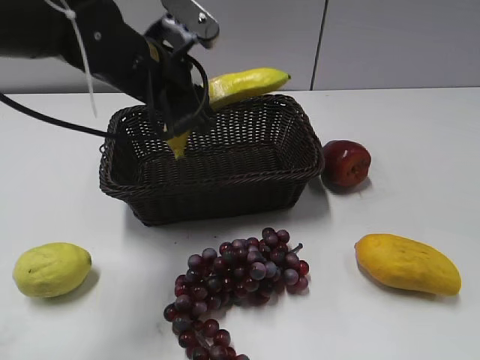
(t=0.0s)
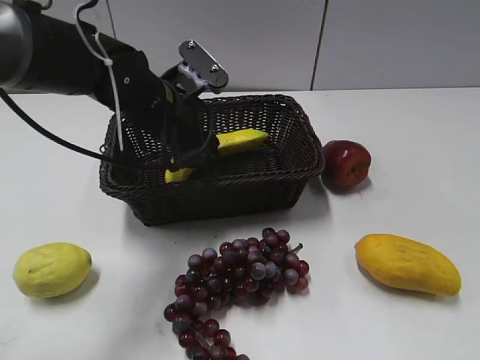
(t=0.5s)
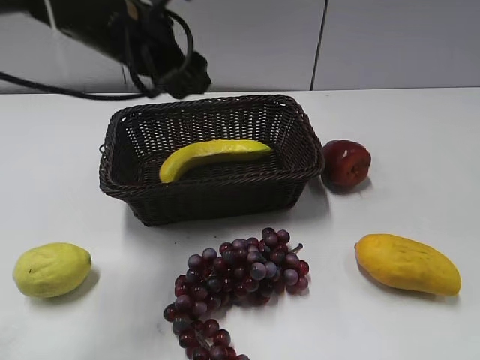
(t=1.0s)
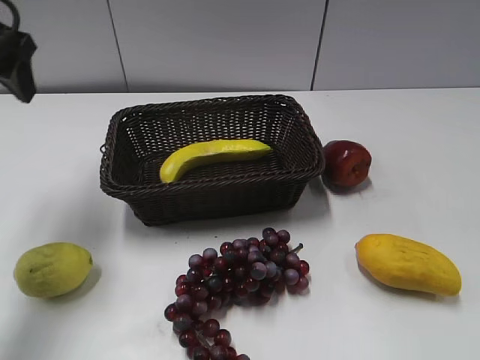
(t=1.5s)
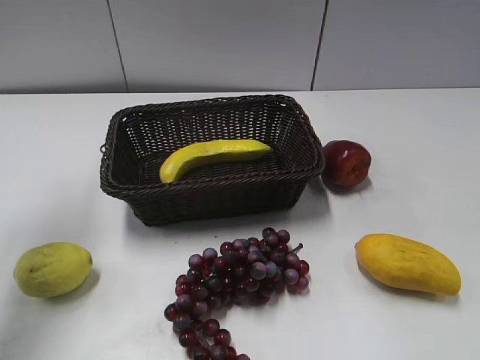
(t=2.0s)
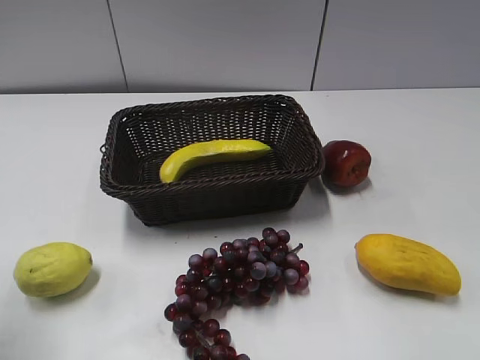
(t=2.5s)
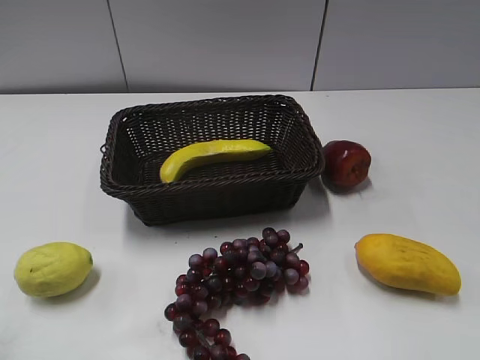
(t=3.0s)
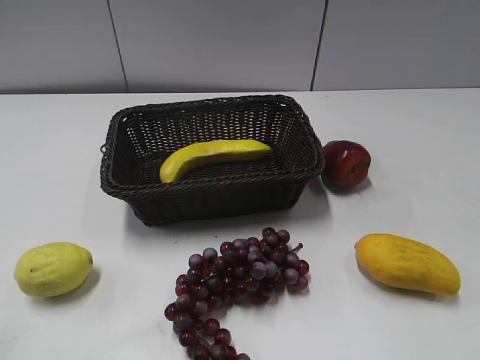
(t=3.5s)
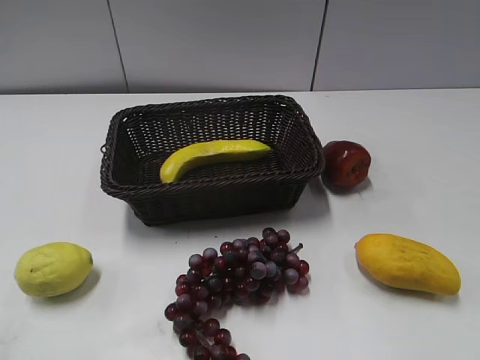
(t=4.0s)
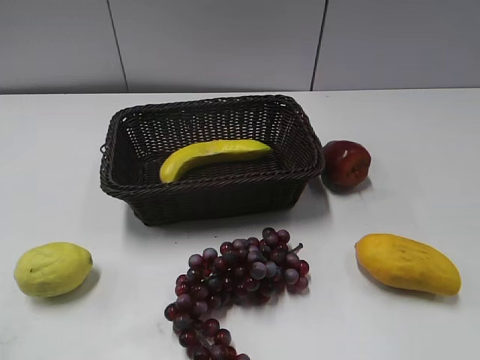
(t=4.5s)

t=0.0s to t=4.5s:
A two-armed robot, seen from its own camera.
t=0.0s to t=2.0s: The left gripper heads to the left and upward, covering roughly 25 cm, and opens.
t=2.0s to t=4.5s: The left gripper shifts some 30 cm backward, and closes its fingers.

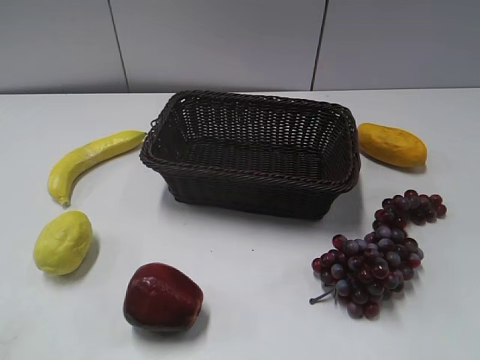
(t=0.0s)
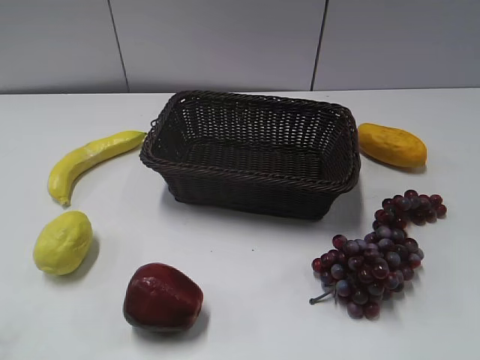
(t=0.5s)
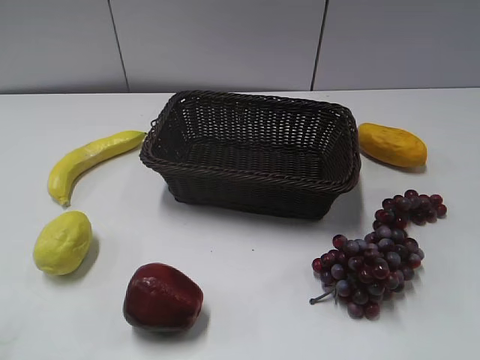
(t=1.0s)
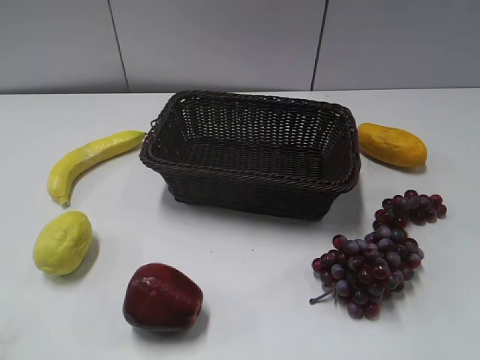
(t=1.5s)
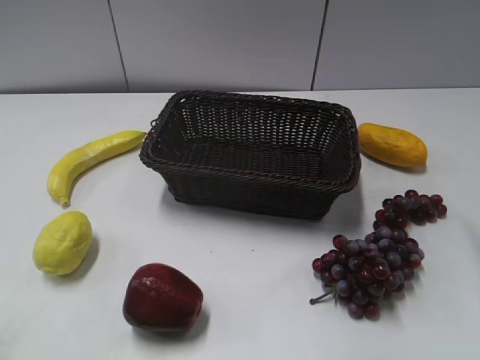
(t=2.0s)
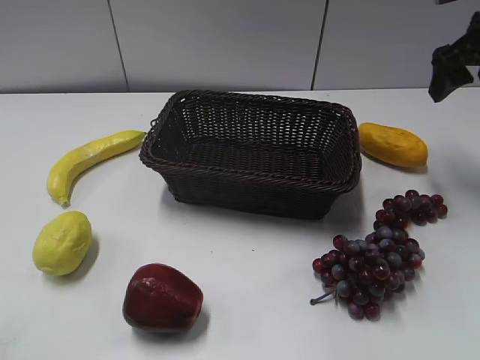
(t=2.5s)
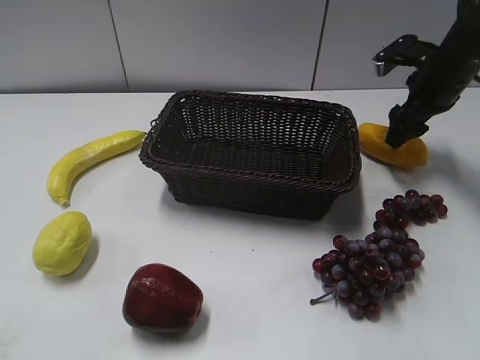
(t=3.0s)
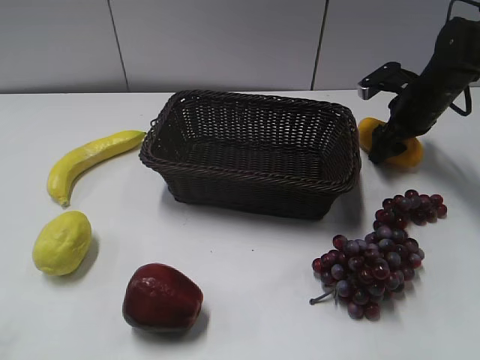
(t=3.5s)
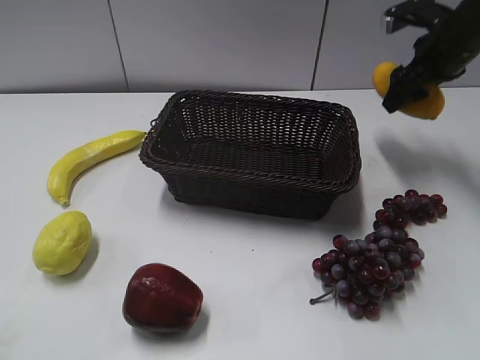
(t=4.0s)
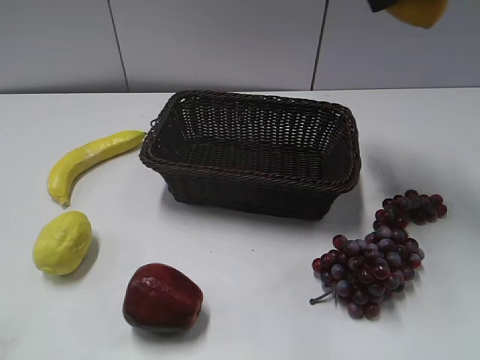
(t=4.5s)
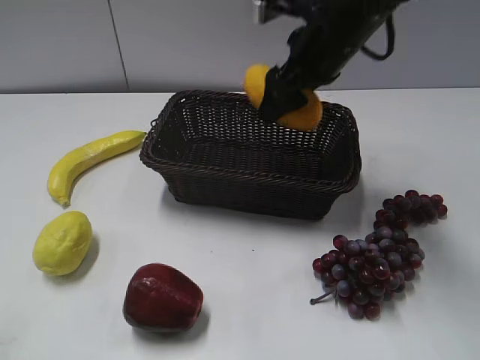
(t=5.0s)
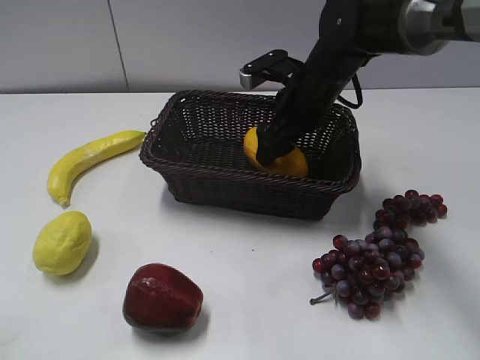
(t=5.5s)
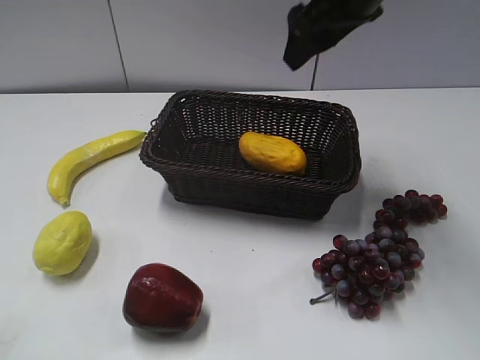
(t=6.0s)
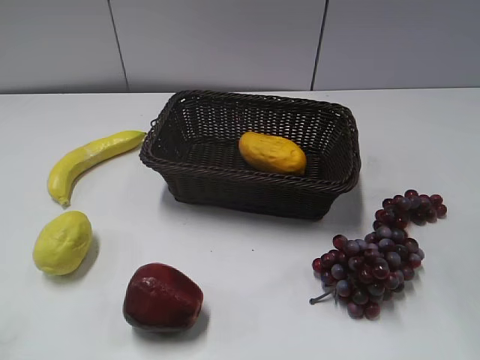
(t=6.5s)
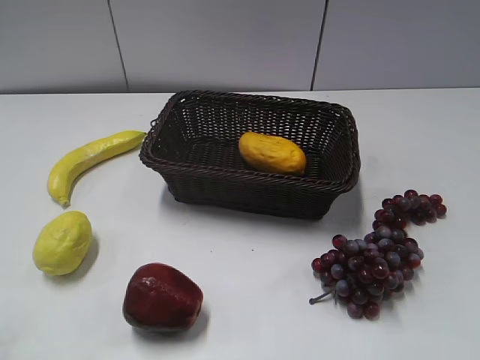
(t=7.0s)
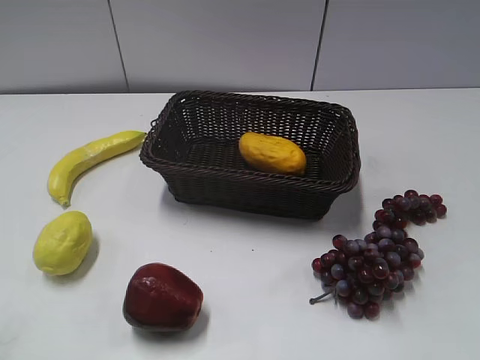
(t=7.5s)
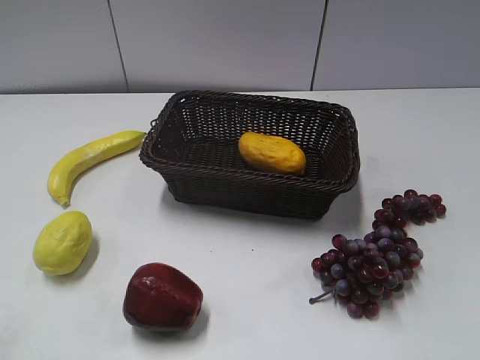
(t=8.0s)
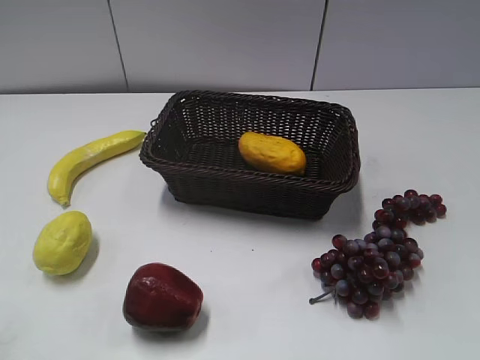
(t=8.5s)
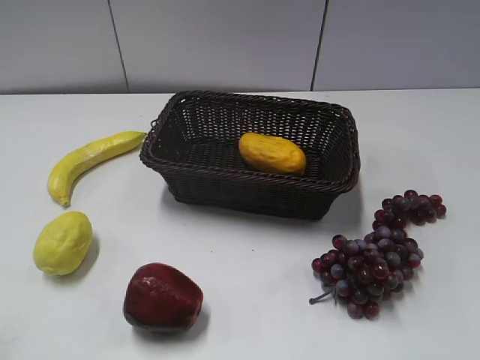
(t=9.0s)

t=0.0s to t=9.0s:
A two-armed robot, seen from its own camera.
Step, t=2.5s to t=3.5s: Grasp the mango with right gripper.
Step, t=4.0s to t=5.5s: Place the mango in the basket with right gripper.
t=2.0s to t=4.5s: The right gripper goes roughly 15 cm forward and to the left, and travels downward and back again, approximately 20 cm each way.
t=4.5s to t=7.0s: The right gripper heads backward, covering roughly 30 cm.
